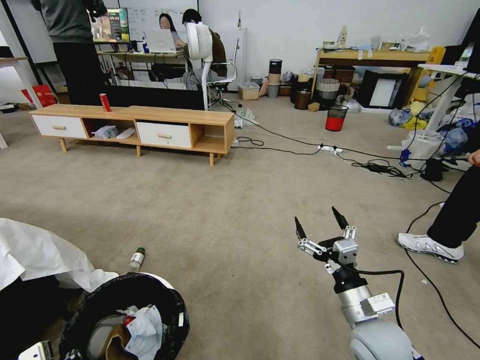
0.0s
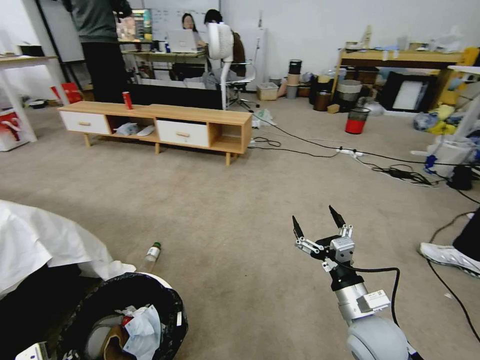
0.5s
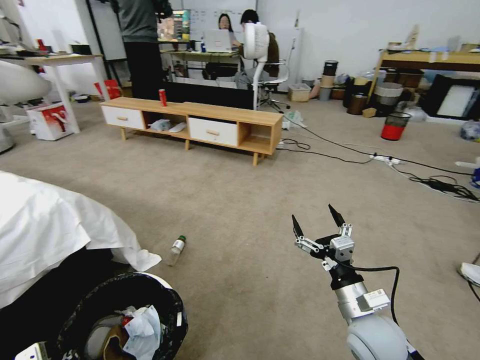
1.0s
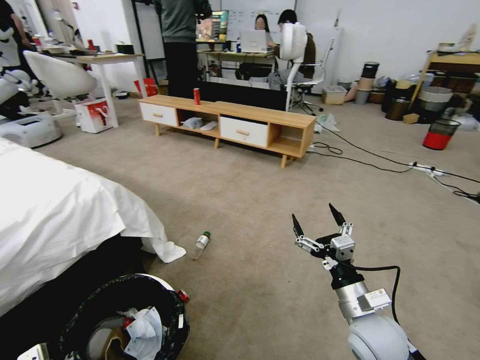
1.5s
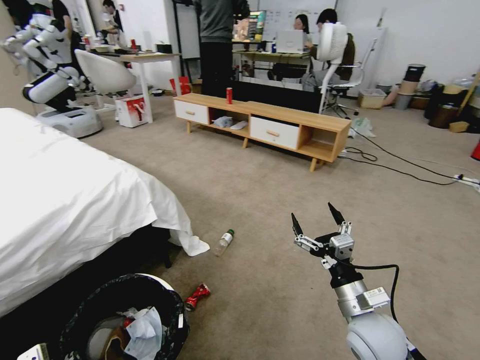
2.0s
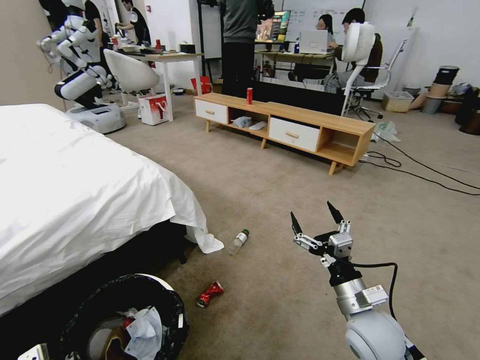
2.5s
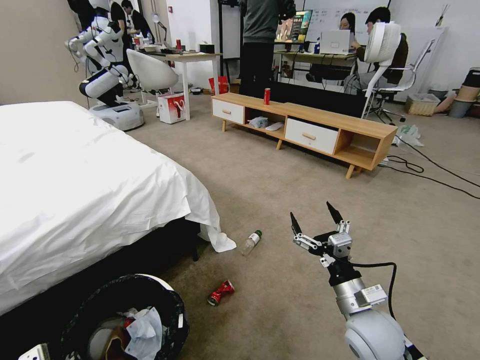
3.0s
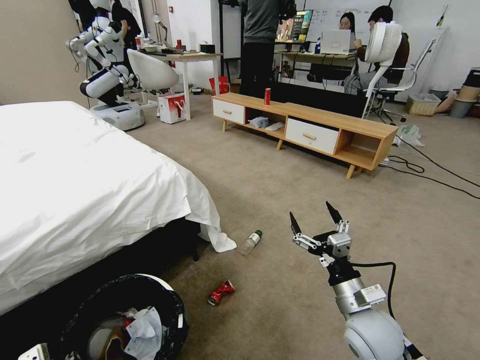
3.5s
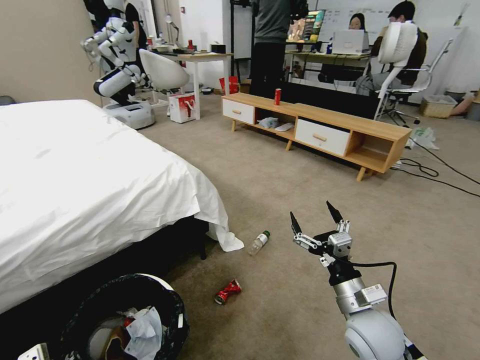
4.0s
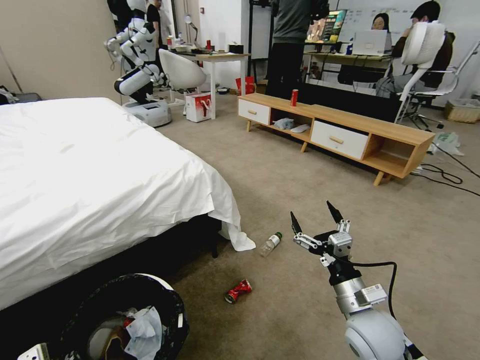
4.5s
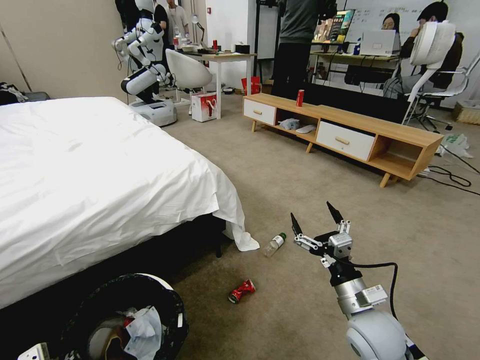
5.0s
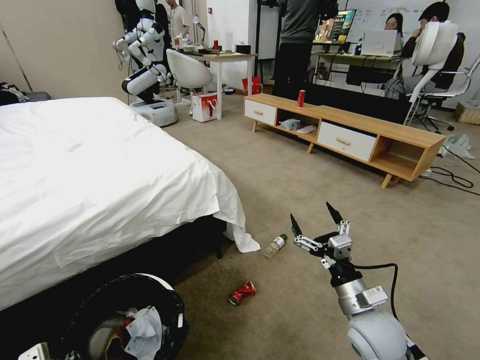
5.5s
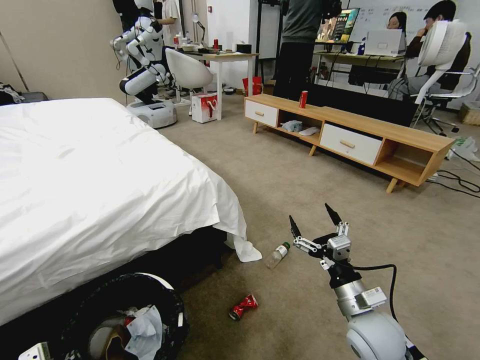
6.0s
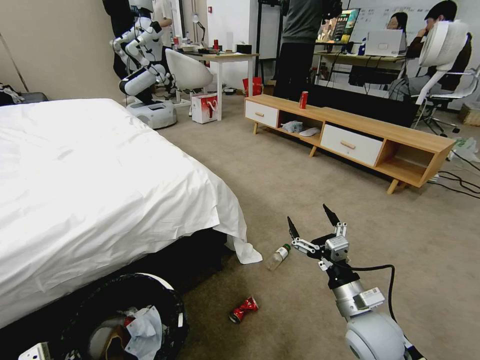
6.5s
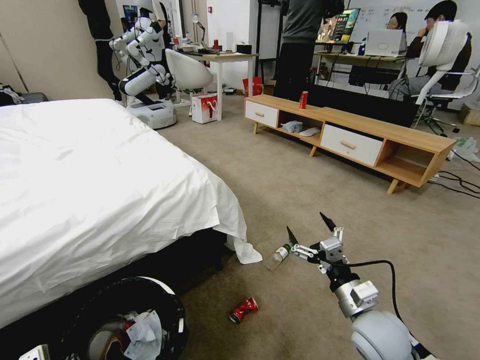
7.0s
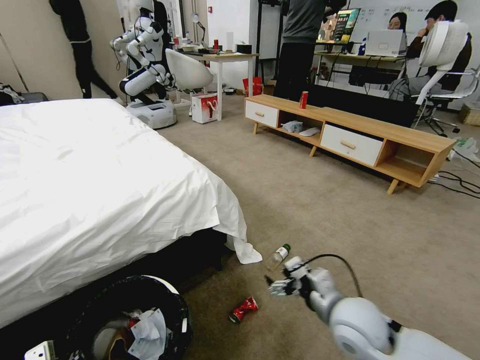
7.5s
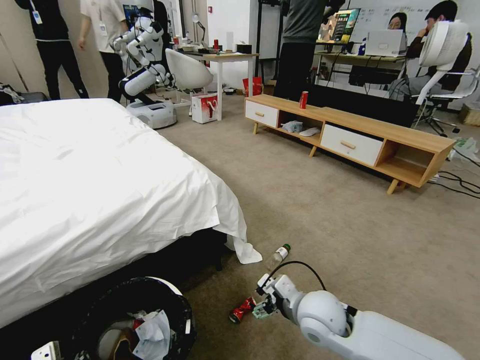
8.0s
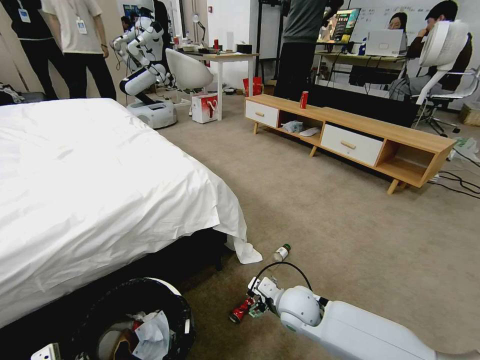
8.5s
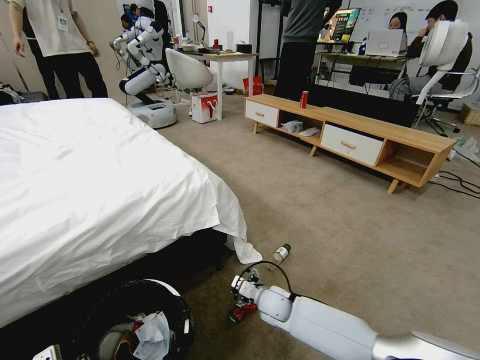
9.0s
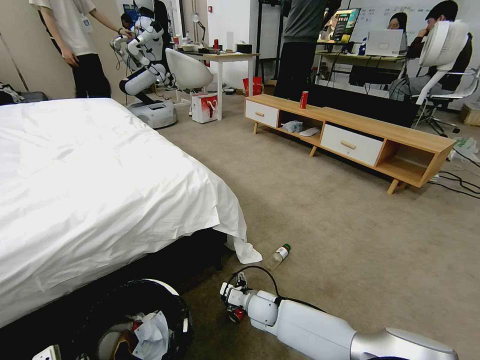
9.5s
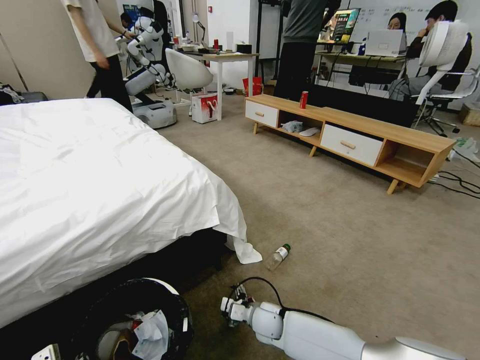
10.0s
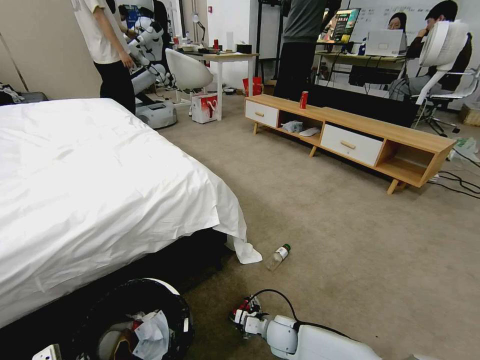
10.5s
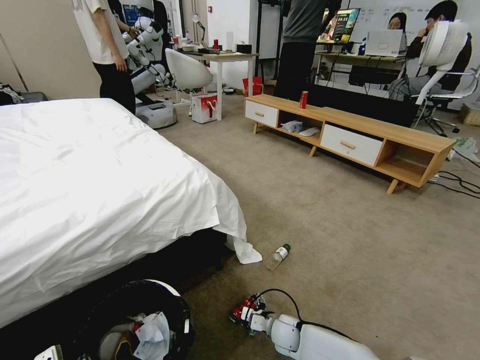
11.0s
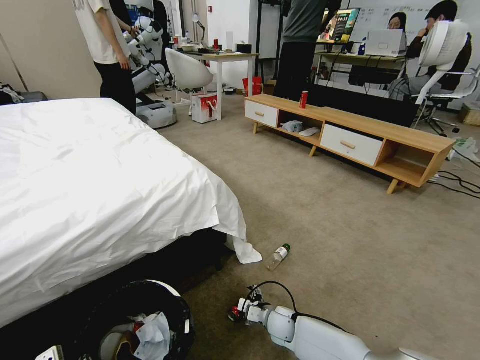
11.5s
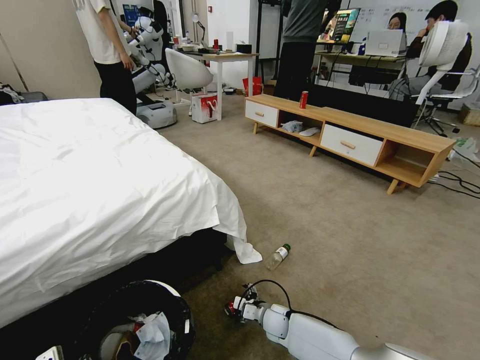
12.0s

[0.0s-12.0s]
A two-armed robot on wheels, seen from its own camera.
Task of the whole recording: Pick up the trash bin, then pick up the garbage from the floor and place it into the trash bin.
6.0s to 8.0s: The right gripper is displaced to the left by some 10 cm.
8.0s to 10.0s: The right gripper goes roughly 20 cm downward and to the left.
10.0s to 12.0s: The right gripper moves downward, roughly 5 cm.

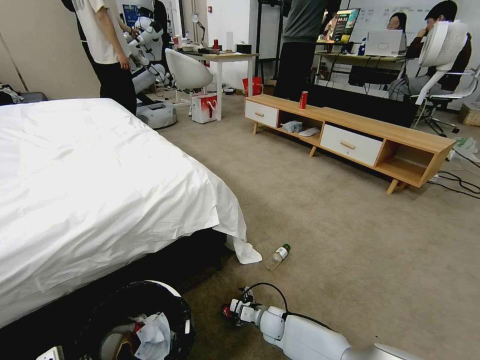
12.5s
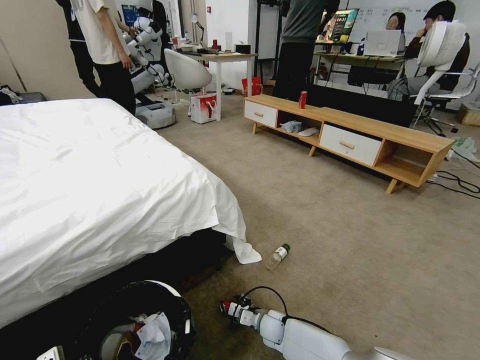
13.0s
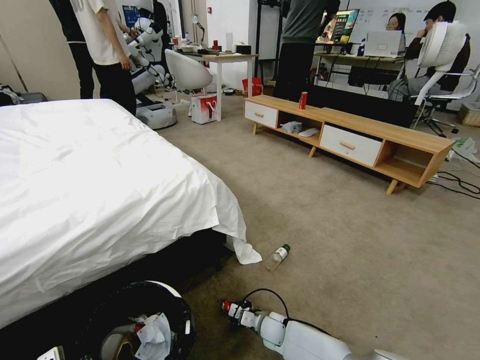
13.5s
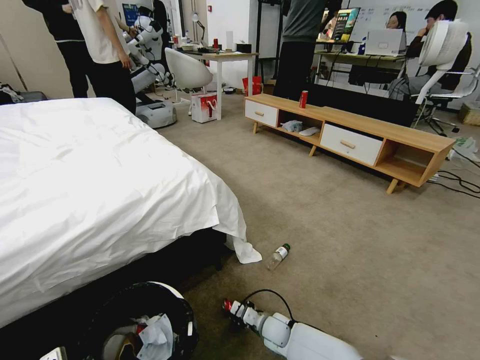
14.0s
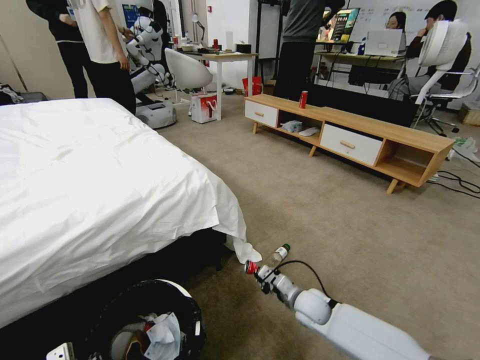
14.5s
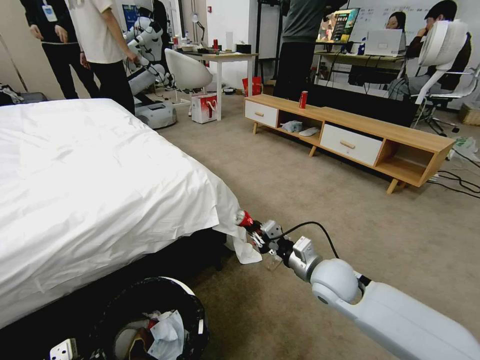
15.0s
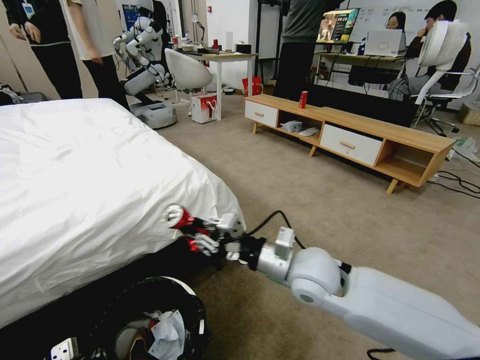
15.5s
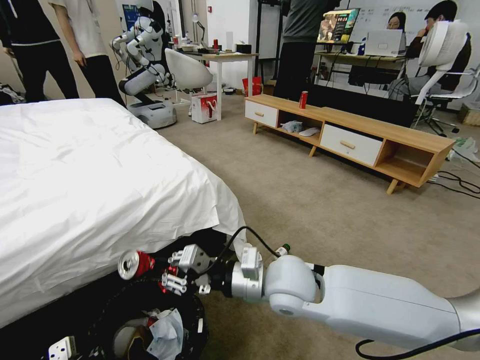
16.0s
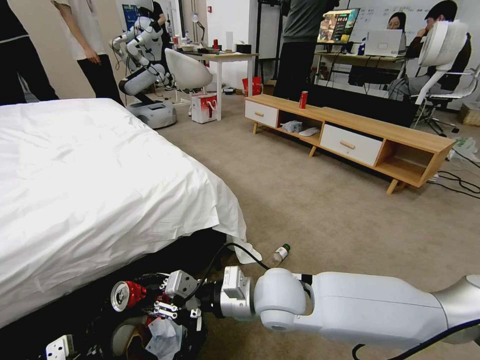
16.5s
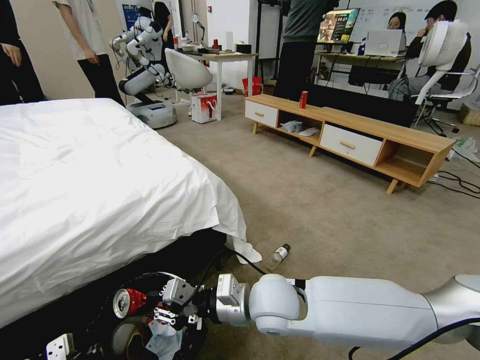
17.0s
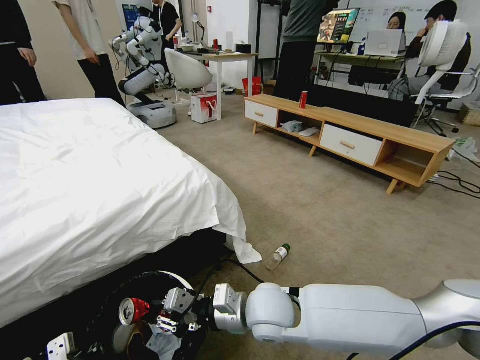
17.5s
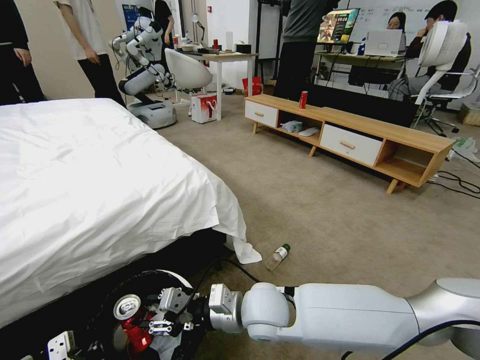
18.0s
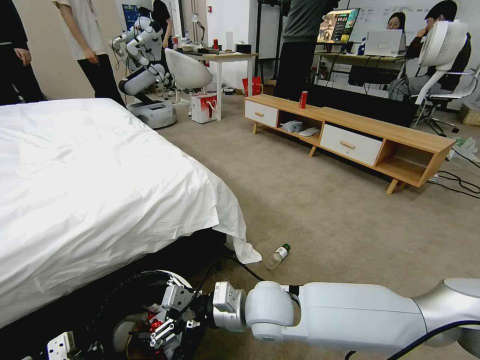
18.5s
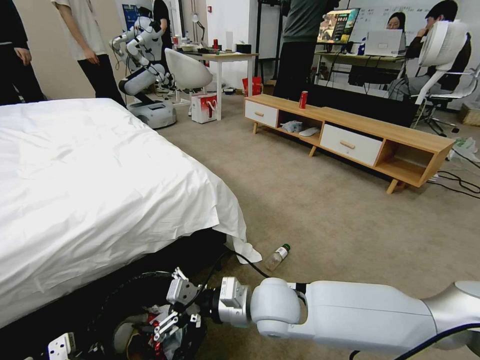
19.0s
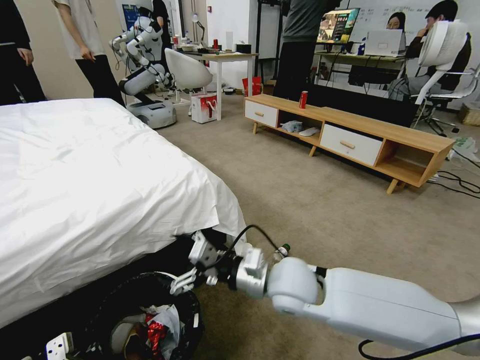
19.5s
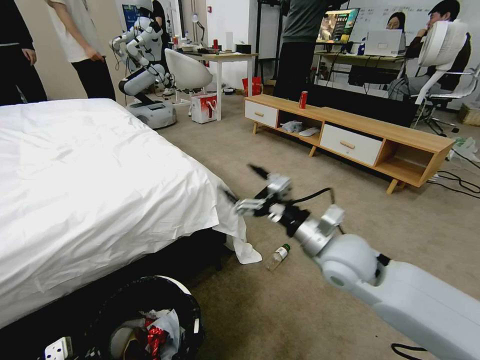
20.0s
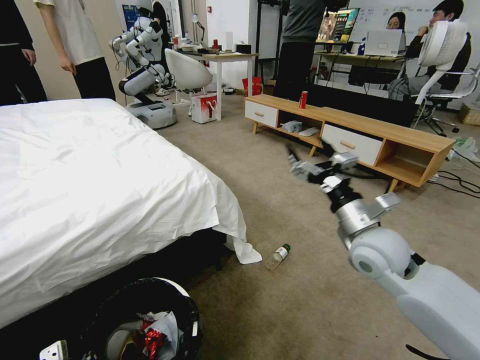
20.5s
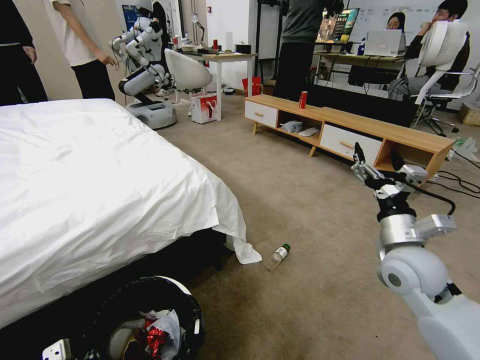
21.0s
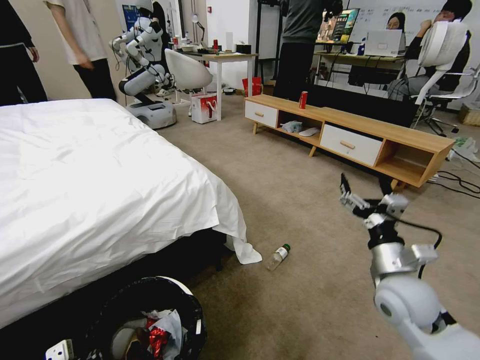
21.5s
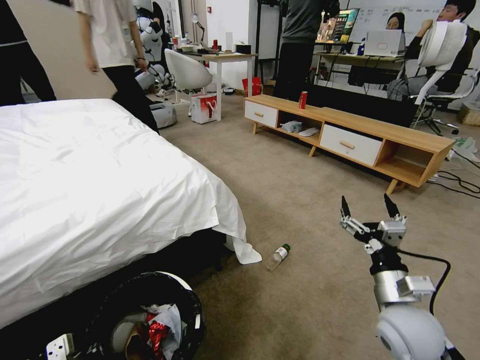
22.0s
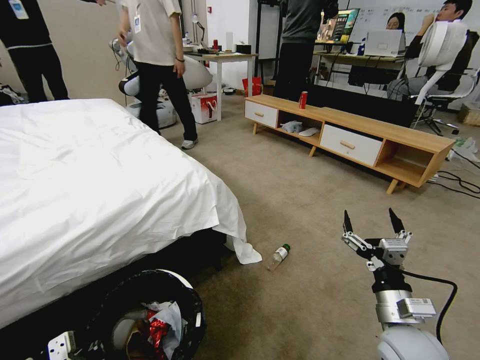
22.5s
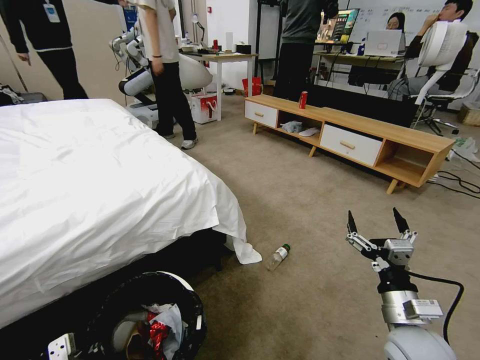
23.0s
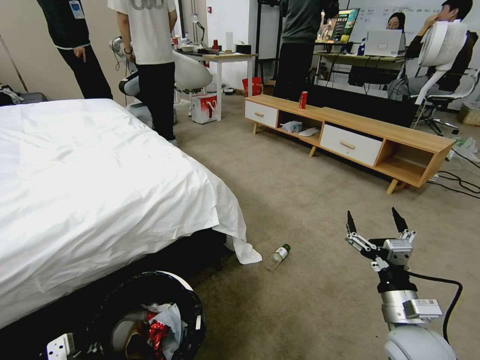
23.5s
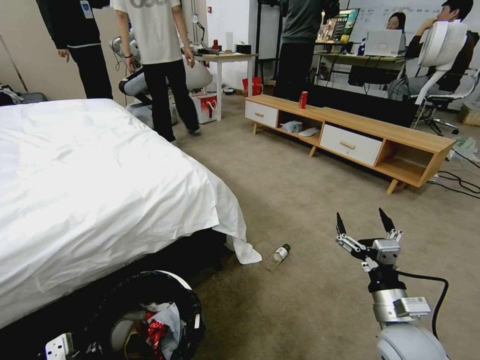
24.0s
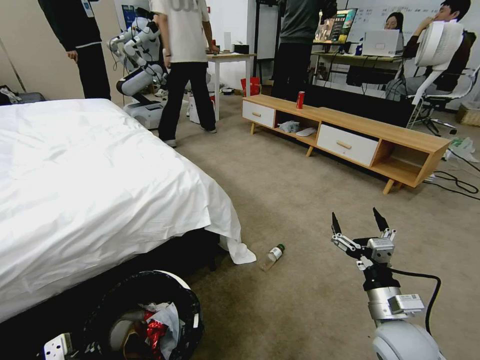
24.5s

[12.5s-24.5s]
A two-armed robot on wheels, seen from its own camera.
Task of the whole recording: Pick up the trash bin, then pick up the garbage from the floor and place it into the trash bin.
12.5s to 14.5s: The right gripper heads upward and to the right, covering approximately 15 cm, and closes.
14.5s to 16.5s: The right gripper moves upward and to the left, approximately 25 cm.
16.5s to 18.5s: The right gripper opens.
18.5s to 20.5s: The right gripper heads to the right and upward, covering some 25 cm.
20.5s to 22.5s: The right gripper travels backward and downward by about 20 cm.

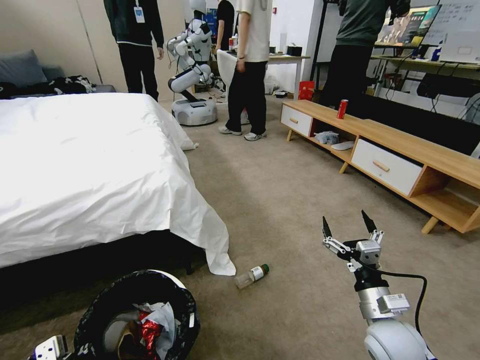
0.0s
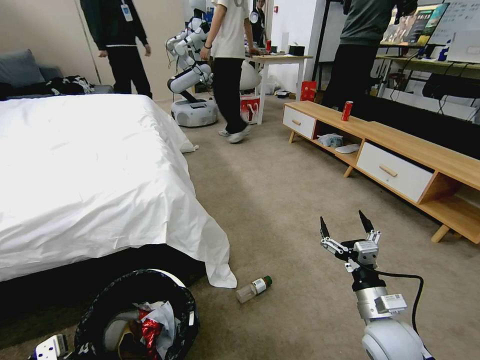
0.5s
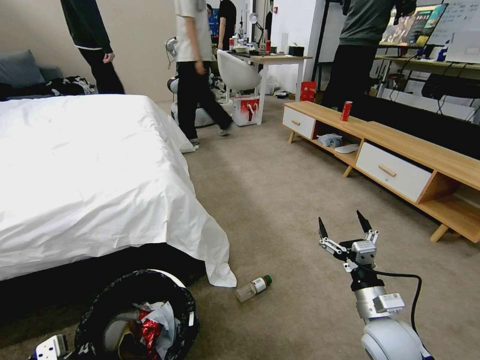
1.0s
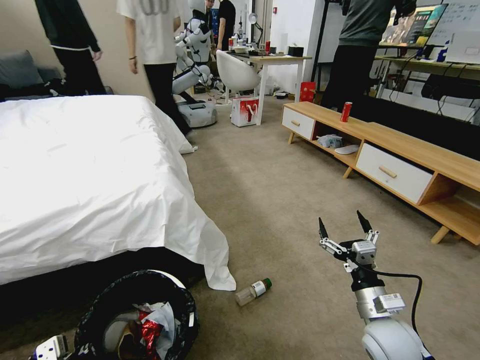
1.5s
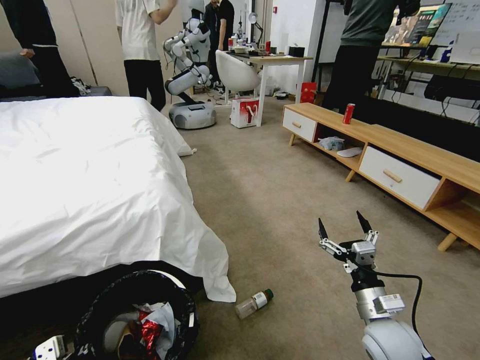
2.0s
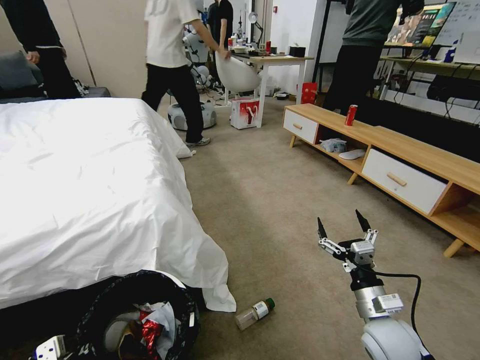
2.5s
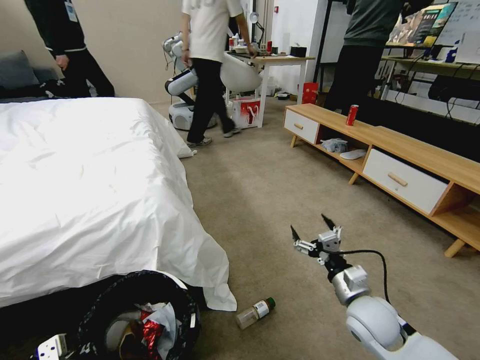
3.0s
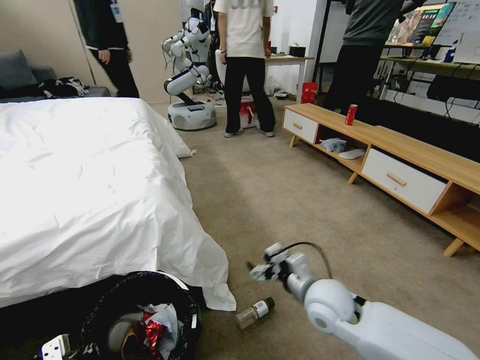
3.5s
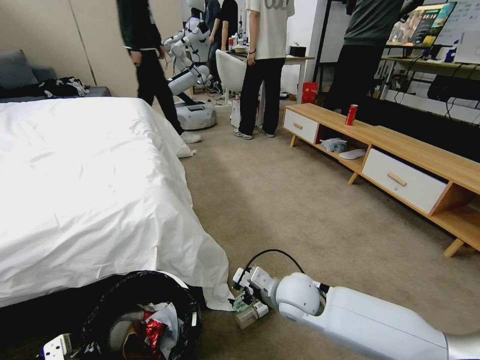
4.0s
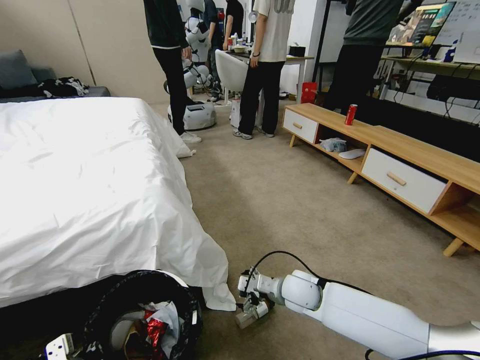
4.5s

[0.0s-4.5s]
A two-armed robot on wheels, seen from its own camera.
Task of the whole recording: Pick up the trash bin, then pick up the garbage from the floor and place it into the trash bin.
2.0s to 4.5s: The right gripper travels to the left and forward by roughly 20 cm.
